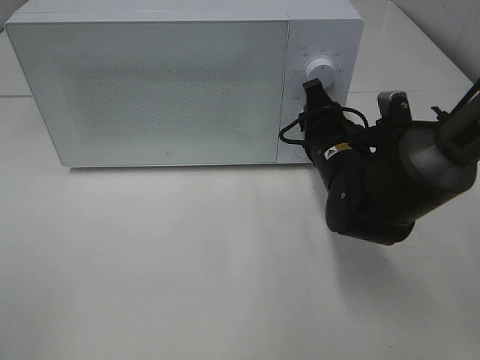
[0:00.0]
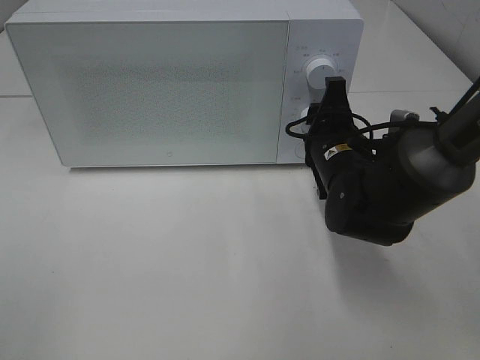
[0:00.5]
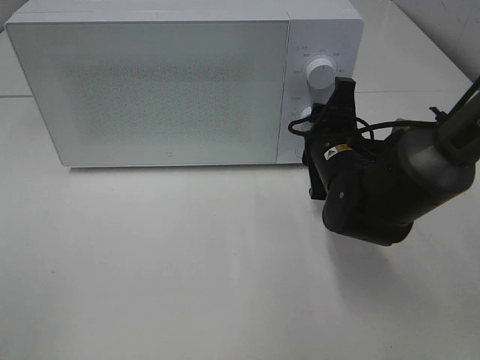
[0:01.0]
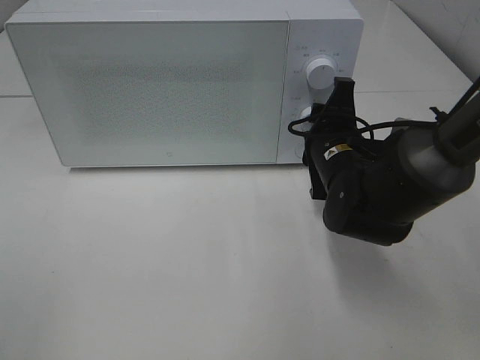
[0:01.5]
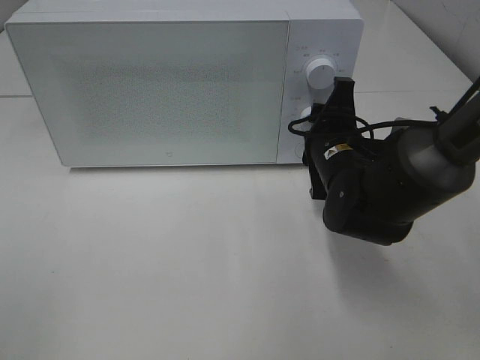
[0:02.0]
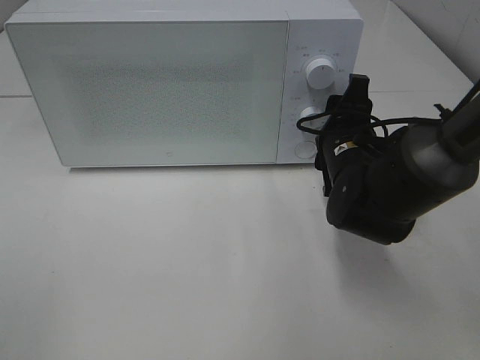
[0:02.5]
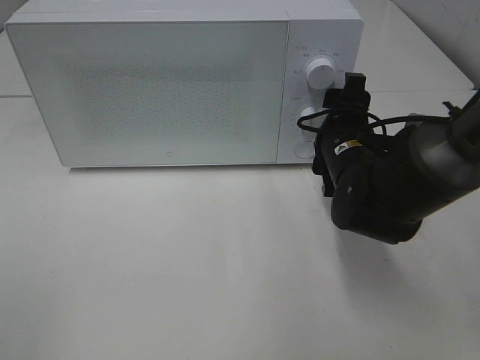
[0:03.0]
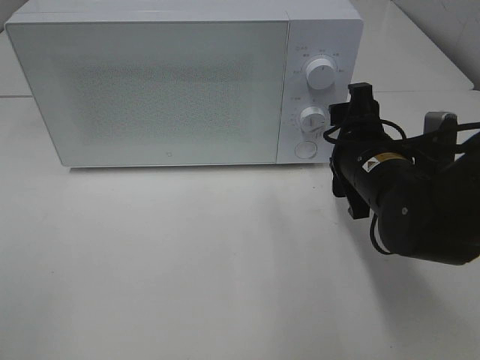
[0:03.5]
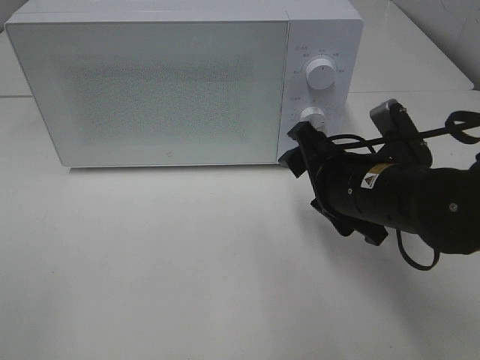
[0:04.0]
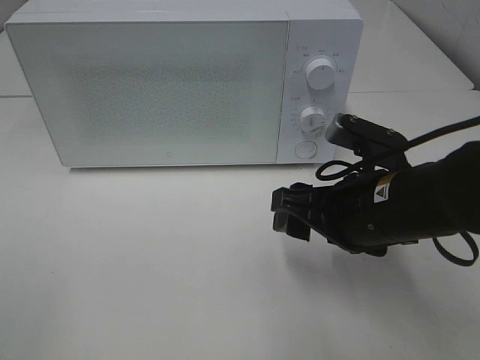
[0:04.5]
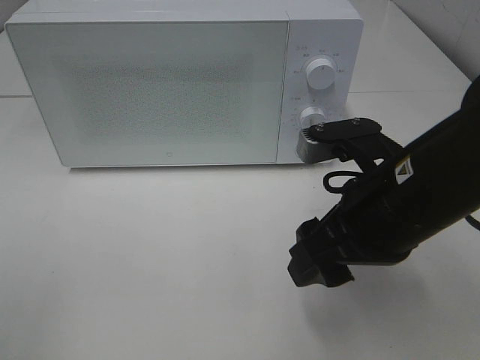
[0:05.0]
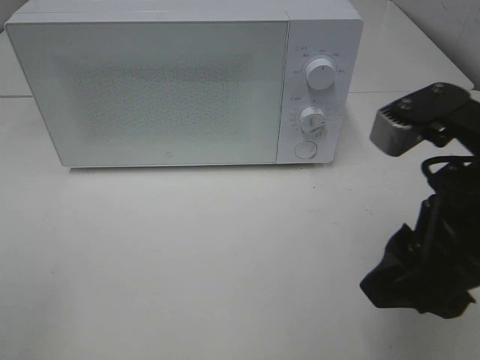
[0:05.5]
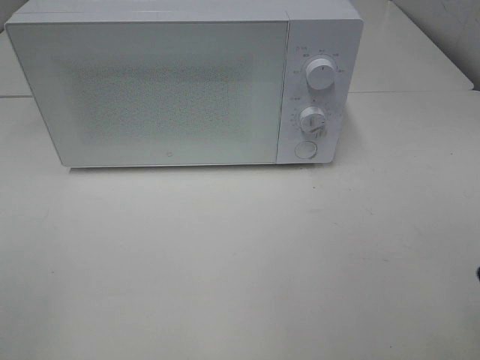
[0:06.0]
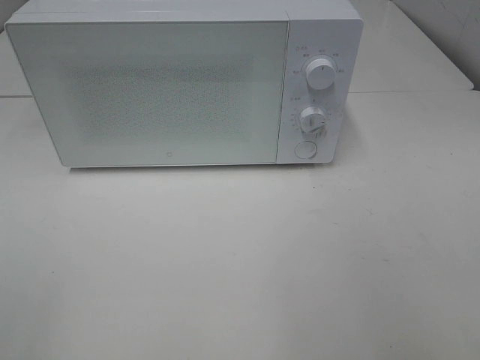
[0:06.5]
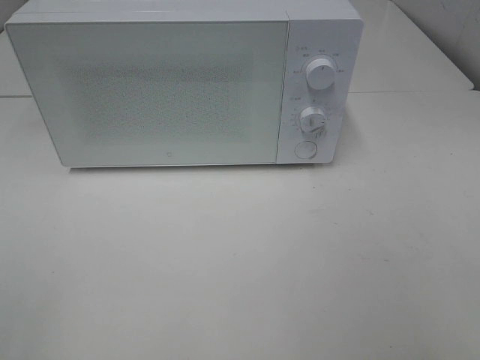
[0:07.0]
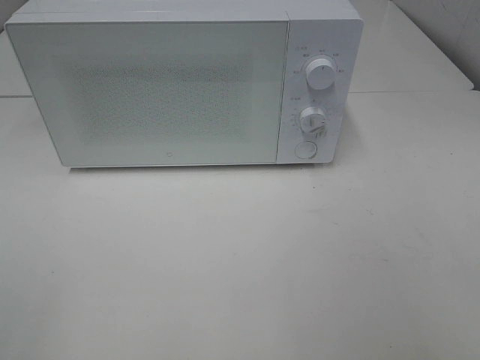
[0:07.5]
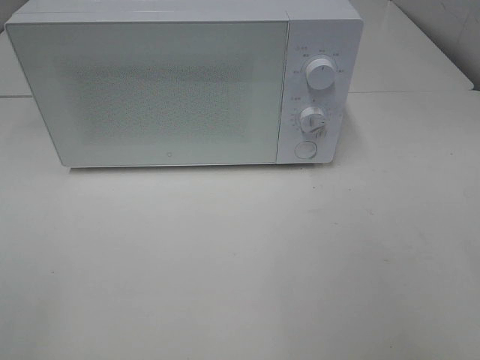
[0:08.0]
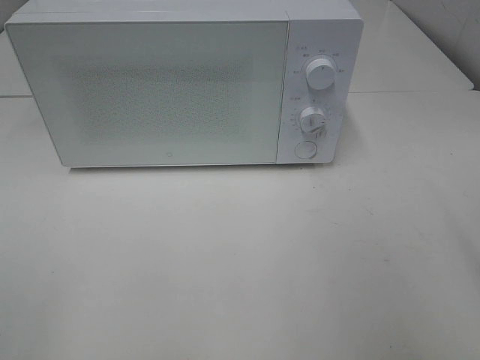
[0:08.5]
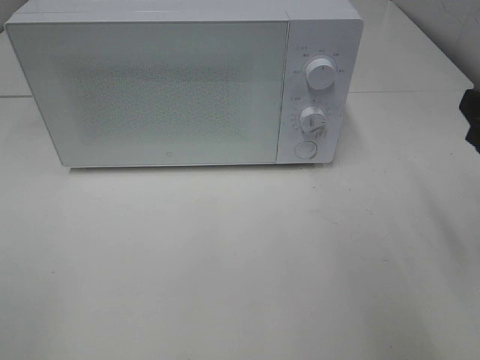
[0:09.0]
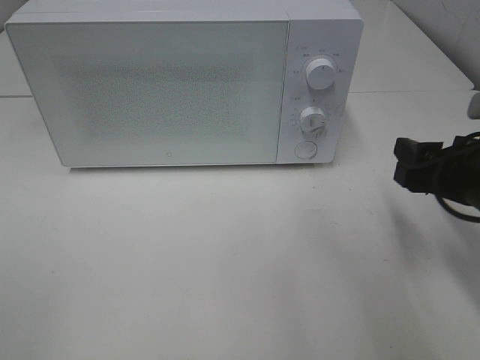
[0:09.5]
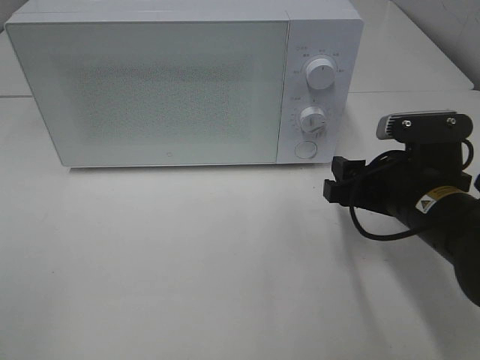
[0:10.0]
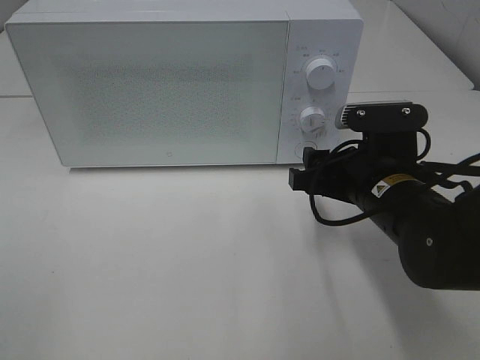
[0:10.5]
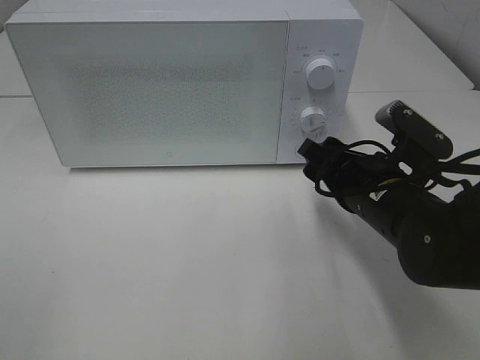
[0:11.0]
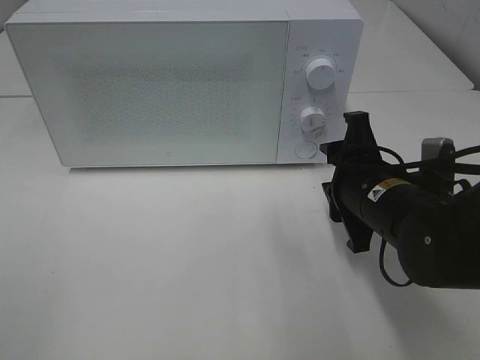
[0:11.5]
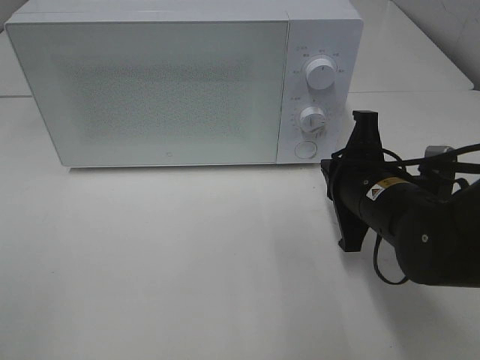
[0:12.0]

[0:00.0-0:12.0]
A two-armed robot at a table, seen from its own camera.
Task of the whole recording: Heat Sandwich.
Step, 0.0 to 3.5 s: Right hand: twist timer button.
2.0 to 4.0 s: The right gripper goes approximately 5 cm backward.
4.0 to 6.0 s: The right gripper moves backward, upward and to the right, roughly 25 cm.
8.0 to 10.0 s: The right gripper shifts about 30 cm forward, downward and to the left.
10.0 to 12.0 s: The right gripper closes its fingers.

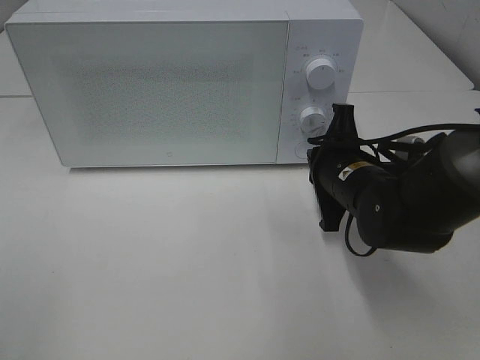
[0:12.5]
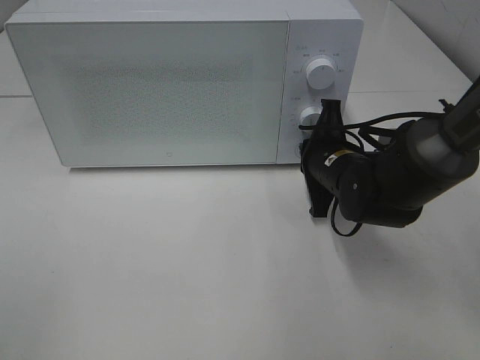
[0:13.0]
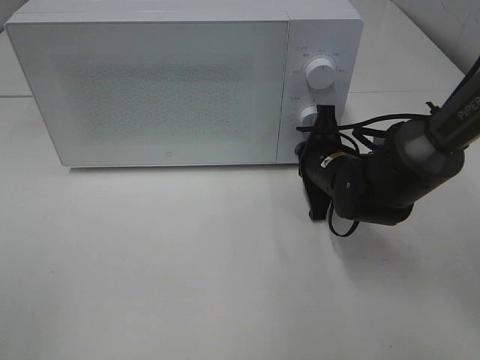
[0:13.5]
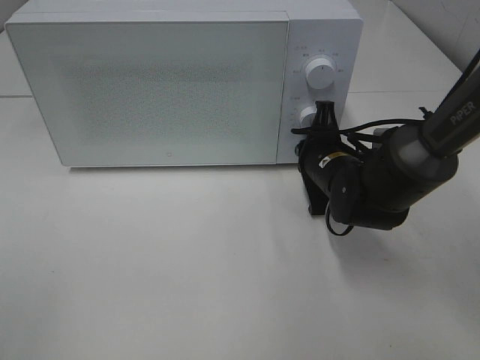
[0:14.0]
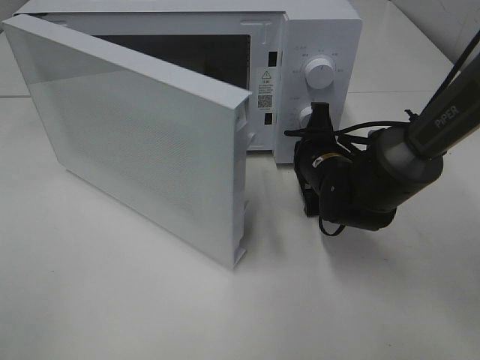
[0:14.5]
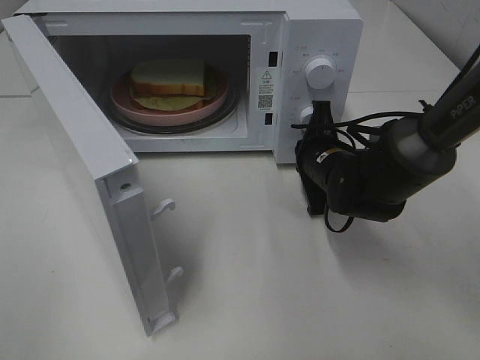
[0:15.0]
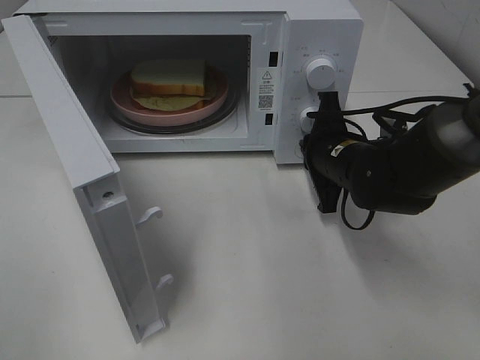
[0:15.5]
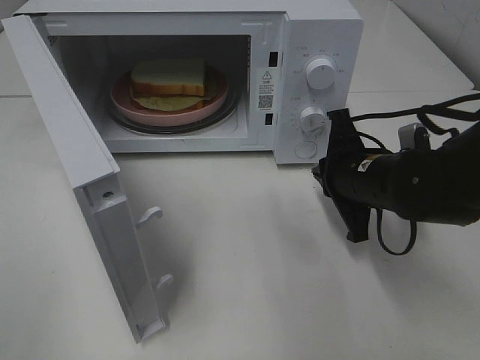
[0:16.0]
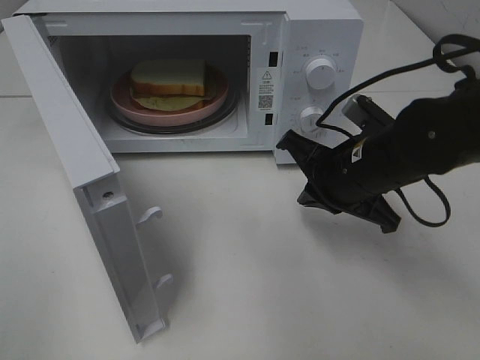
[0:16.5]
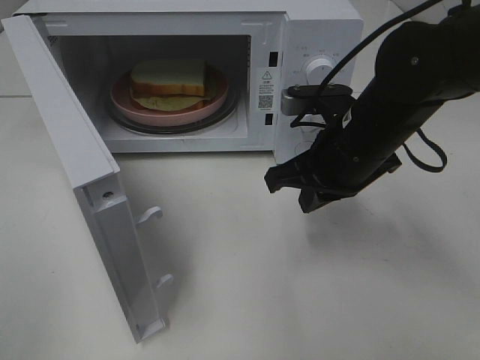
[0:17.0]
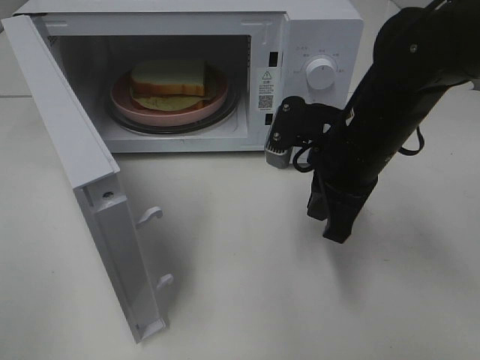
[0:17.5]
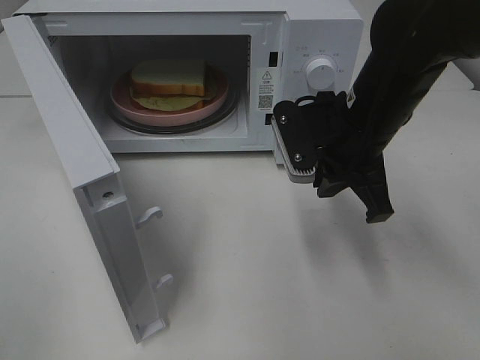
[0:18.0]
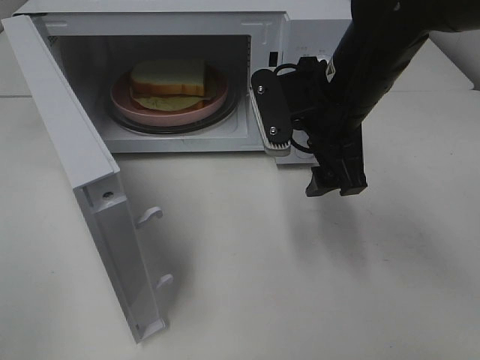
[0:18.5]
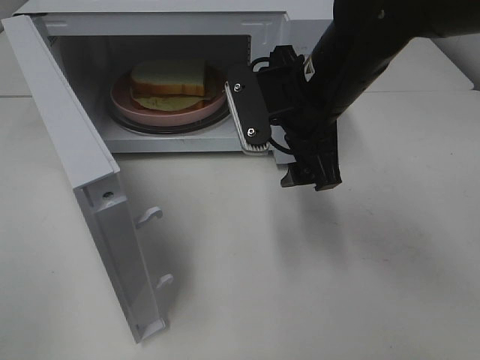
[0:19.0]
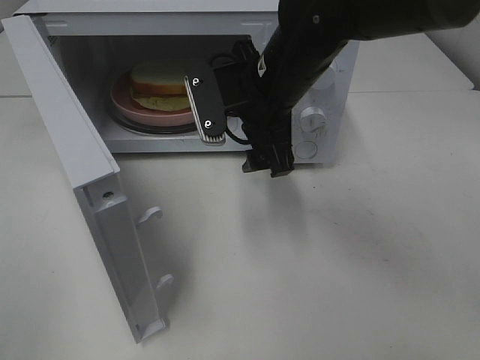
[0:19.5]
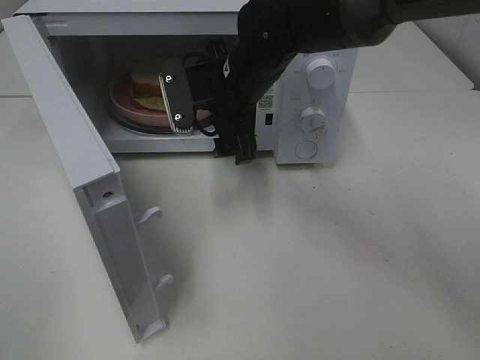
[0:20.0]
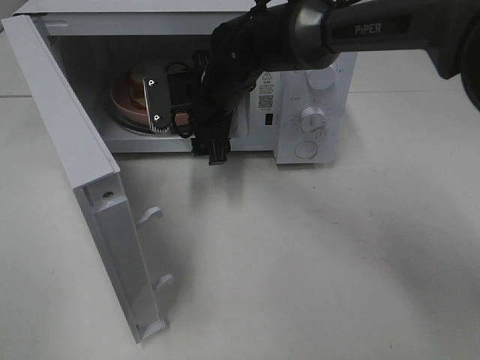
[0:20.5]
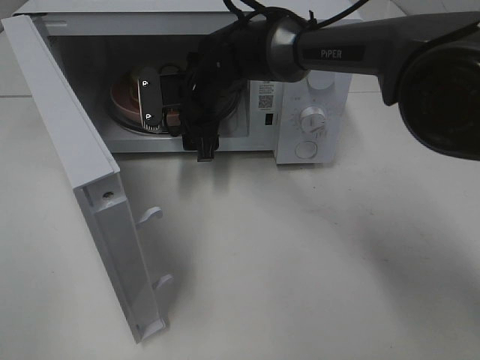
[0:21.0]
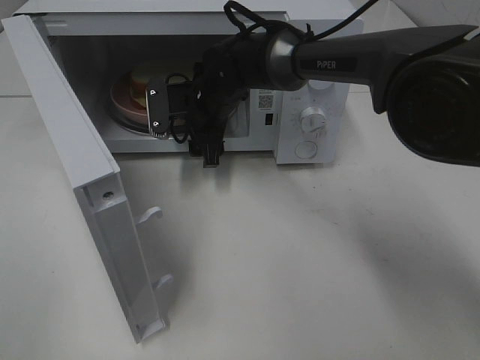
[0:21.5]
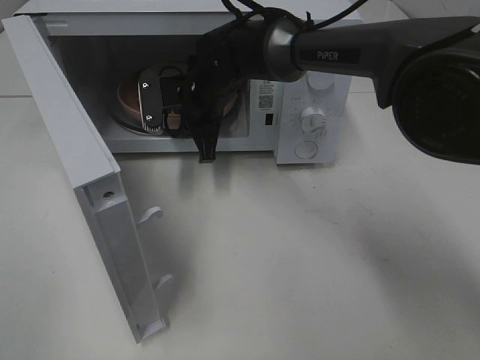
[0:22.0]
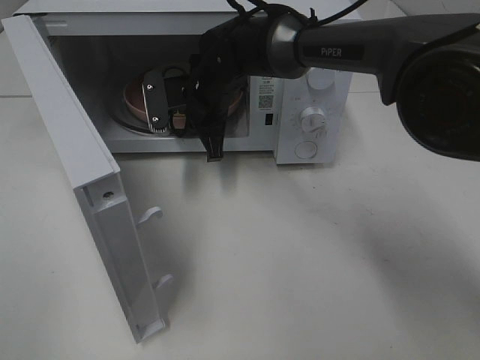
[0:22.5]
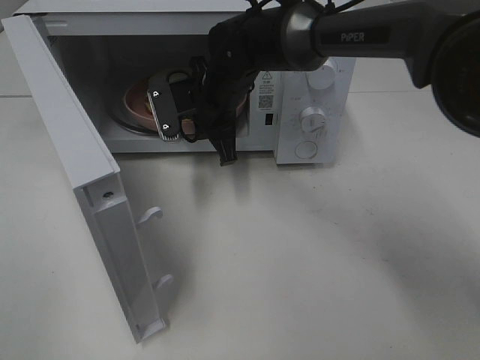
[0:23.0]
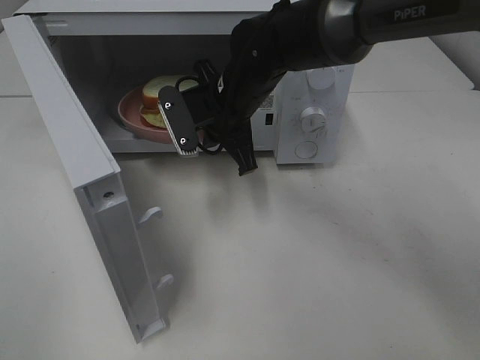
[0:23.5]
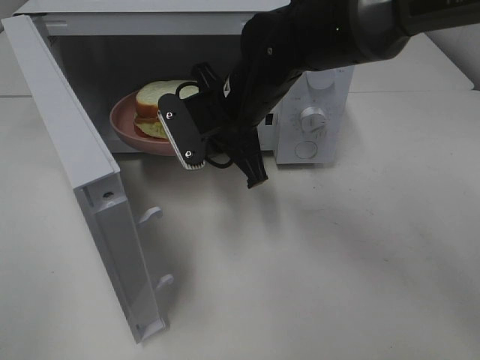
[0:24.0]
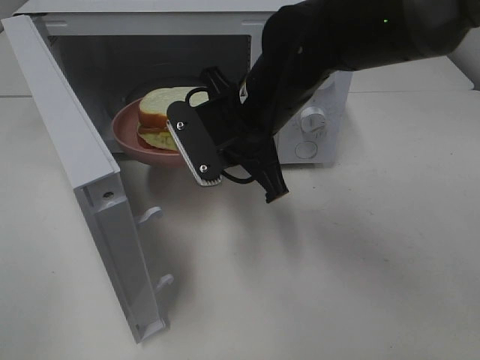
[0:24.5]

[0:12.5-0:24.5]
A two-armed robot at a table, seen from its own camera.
Task of the whole recording: Heat Sandwich.
Step, 12.5 to 15.5 s: Right hand: press the switch.
Step, 16.0 to 21.5 s: Right hand: grab the plate with the sandwich.
12.5 to 14.5 s: The right gripper travels forward by some 5 cm.
14.5 to 16.5 s: The right gripper moves backward and upward, approximately 10 cm.
16.5 to 18.5 s: The right gripper travels upward by approximately 10 cm, and opens up.
18.5 to 20.5 s: The right gripper travels to the left, forward and downward by about 15 cm.
20.5 to 22.5 s: The right gripper closes its fingers.
22.5 to 24.5 s: The right gripper heads backward and upward, covering roughly 15 cm.

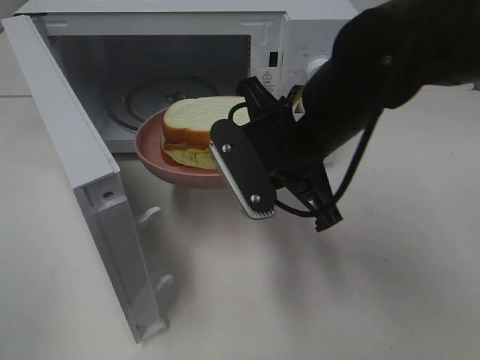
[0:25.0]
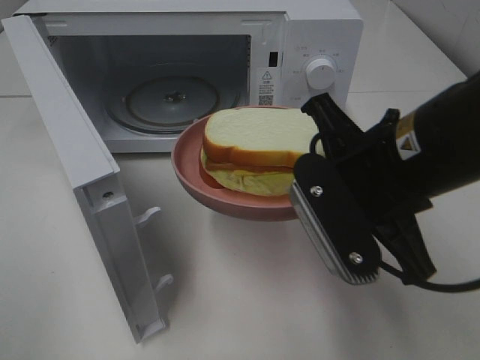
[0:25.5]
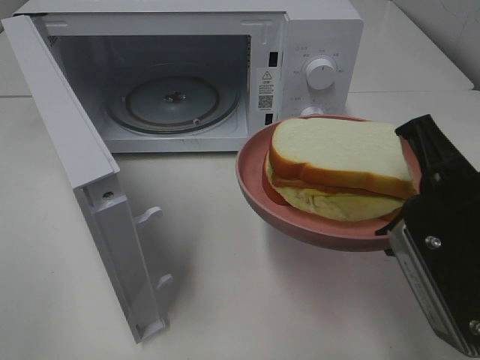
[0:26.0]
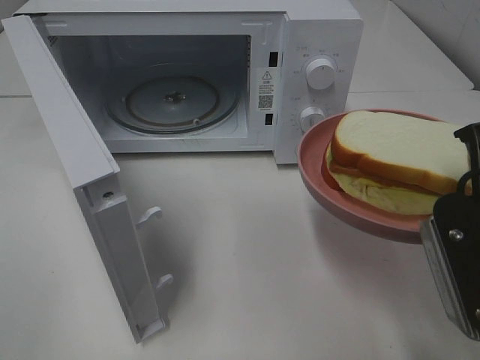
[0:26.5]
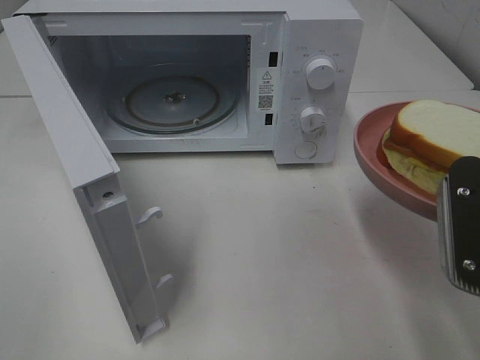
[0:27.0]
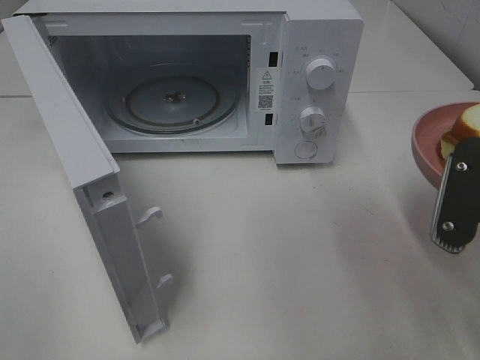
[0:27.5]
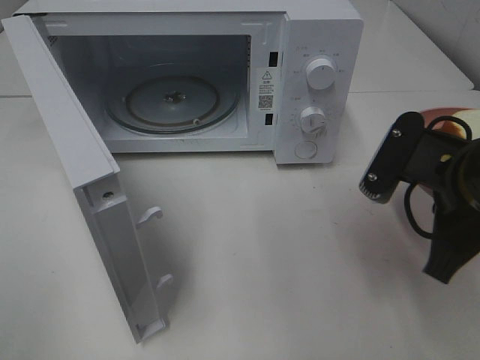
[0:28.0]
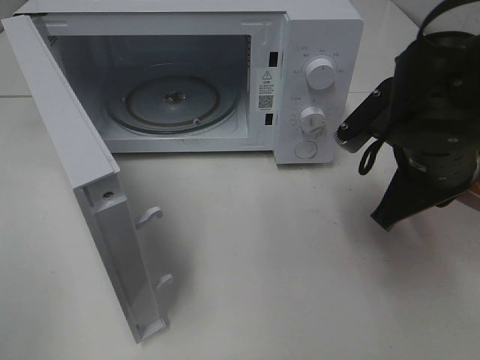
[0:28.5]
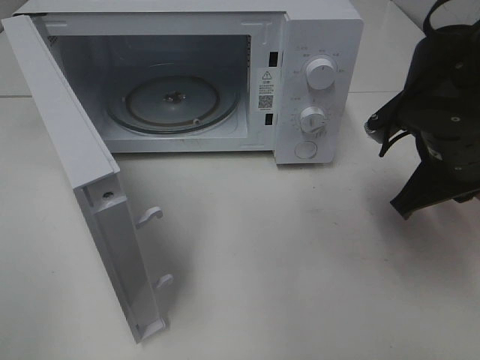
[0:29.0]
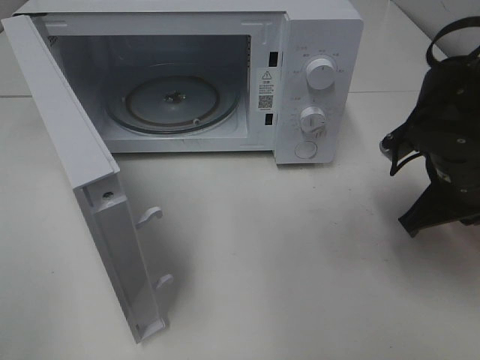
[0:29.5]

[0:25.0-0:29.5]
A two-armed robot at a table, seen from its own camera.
Task of the whole recording: Heat Sandwich.
25.0 to 27.0 s: The right gripper travels to the right and backward by approximately 20 cm.
27.0 to 29.5 s: The right gripper heads forward and downward, covering about 15 cm.
